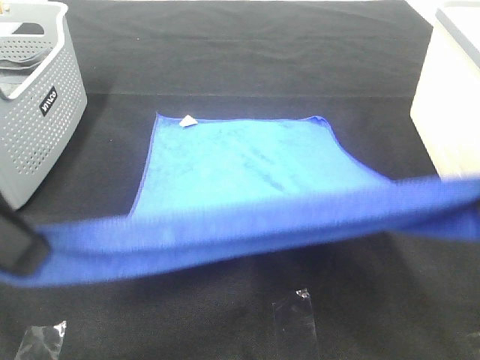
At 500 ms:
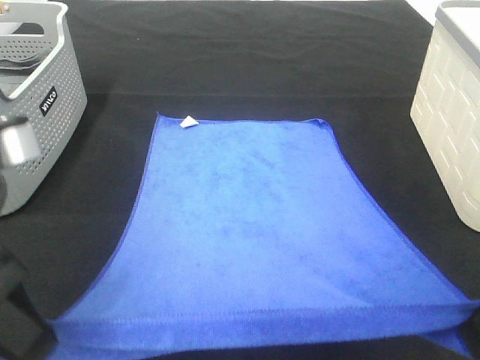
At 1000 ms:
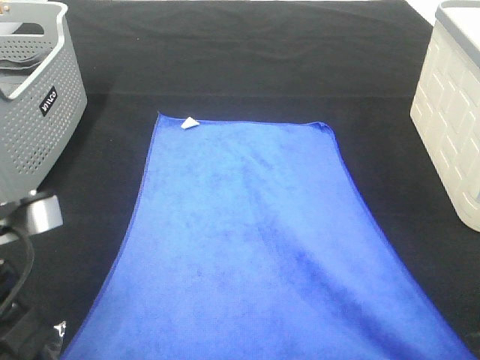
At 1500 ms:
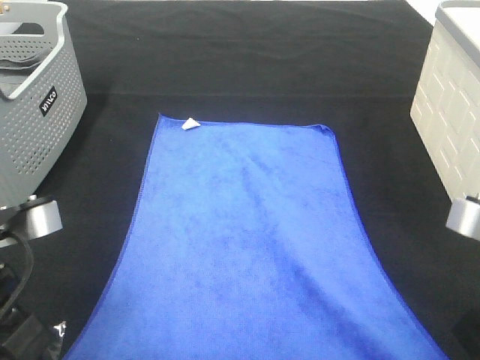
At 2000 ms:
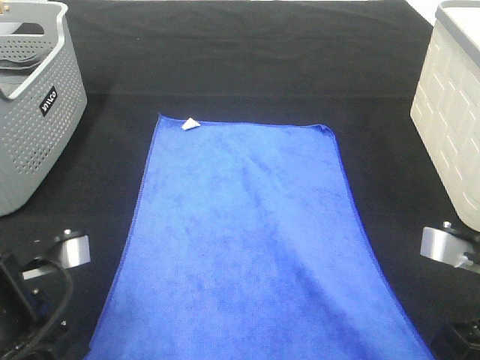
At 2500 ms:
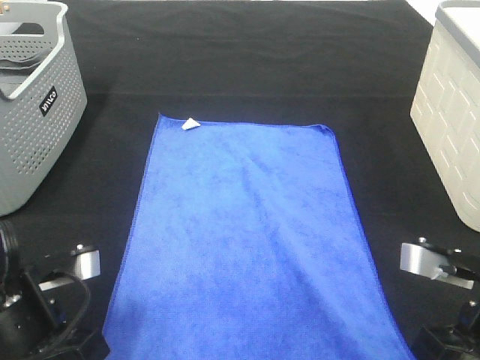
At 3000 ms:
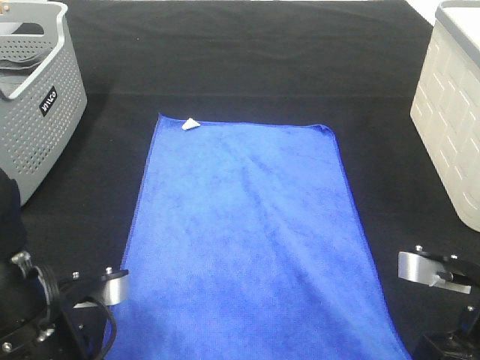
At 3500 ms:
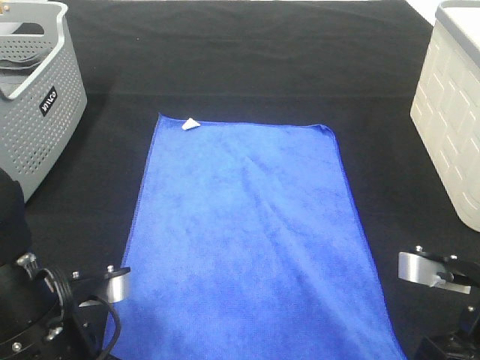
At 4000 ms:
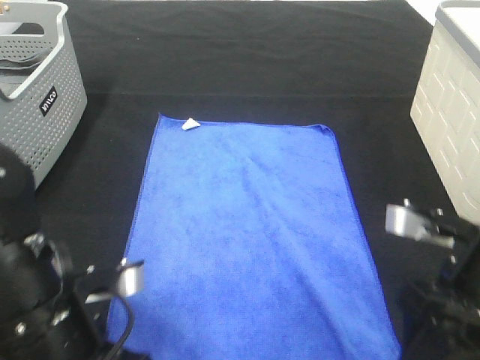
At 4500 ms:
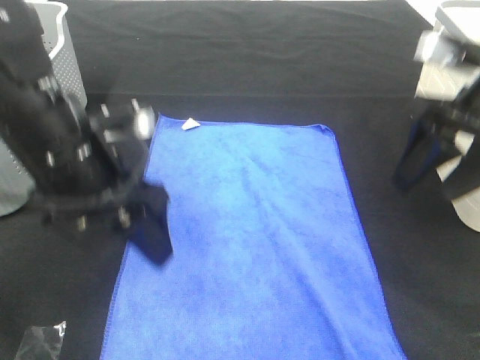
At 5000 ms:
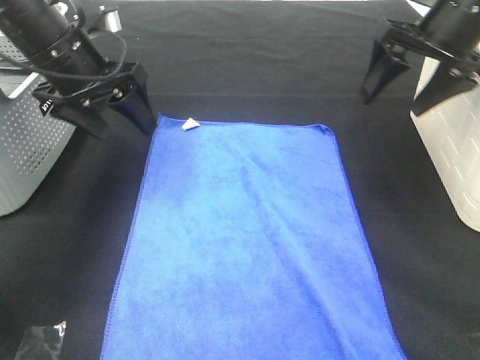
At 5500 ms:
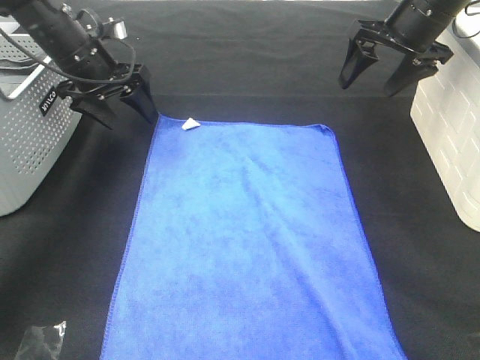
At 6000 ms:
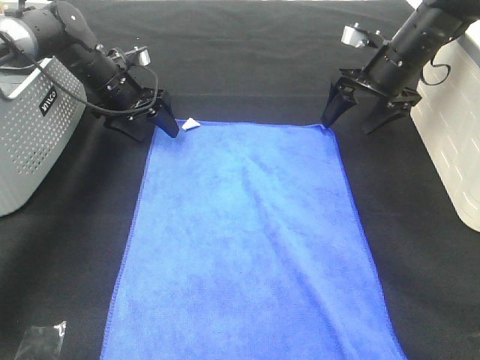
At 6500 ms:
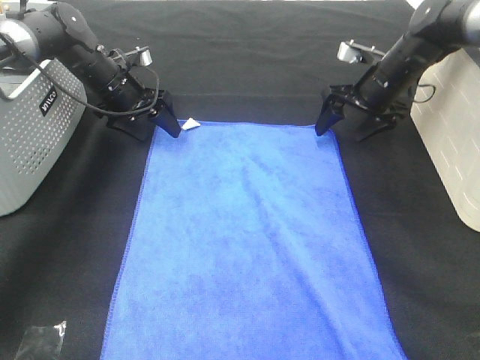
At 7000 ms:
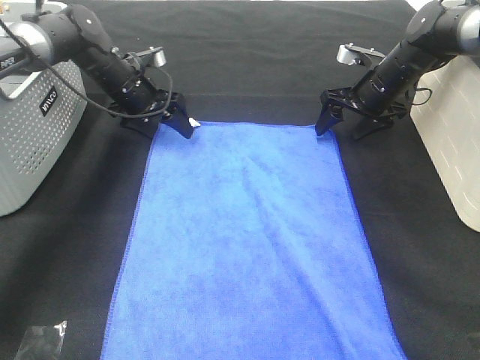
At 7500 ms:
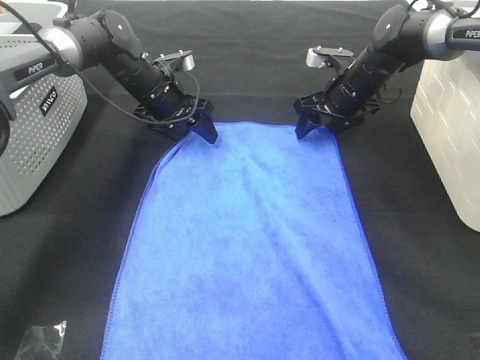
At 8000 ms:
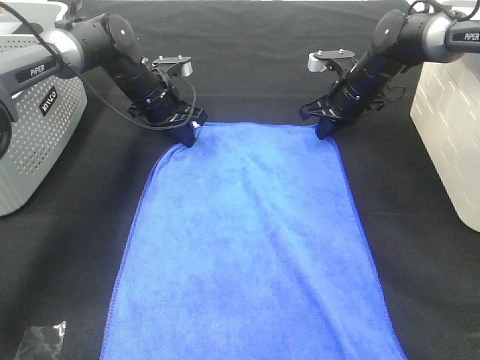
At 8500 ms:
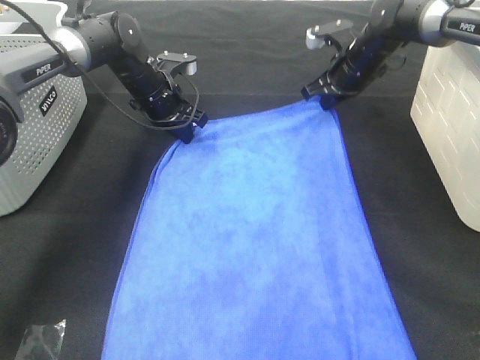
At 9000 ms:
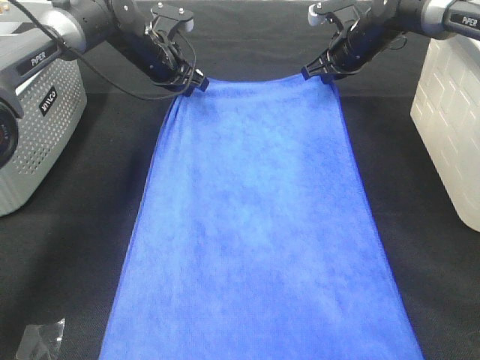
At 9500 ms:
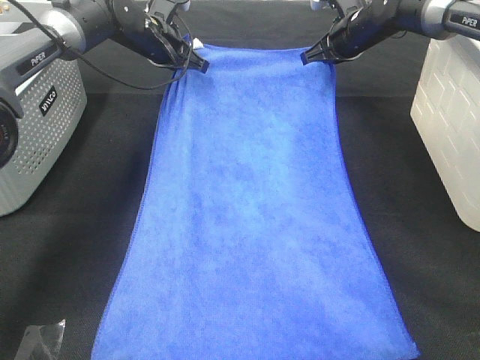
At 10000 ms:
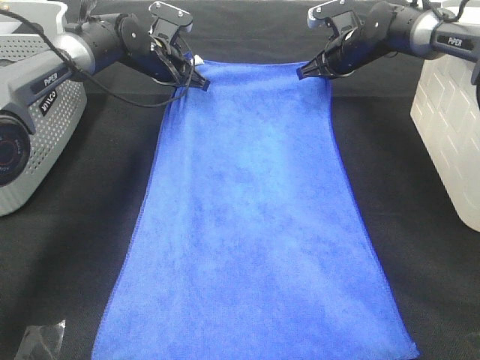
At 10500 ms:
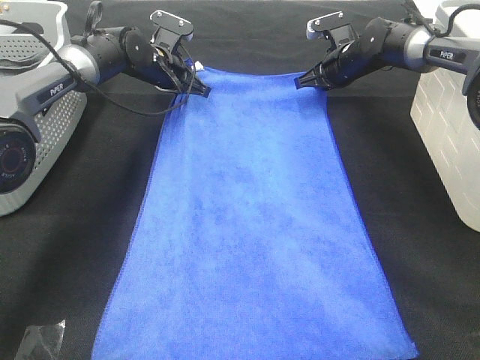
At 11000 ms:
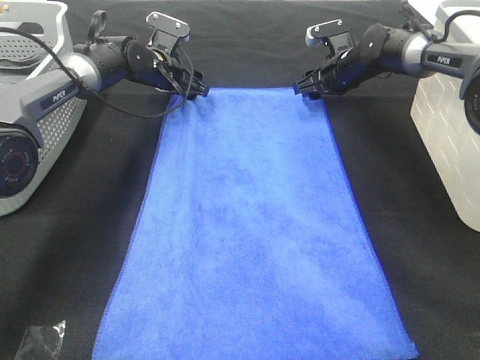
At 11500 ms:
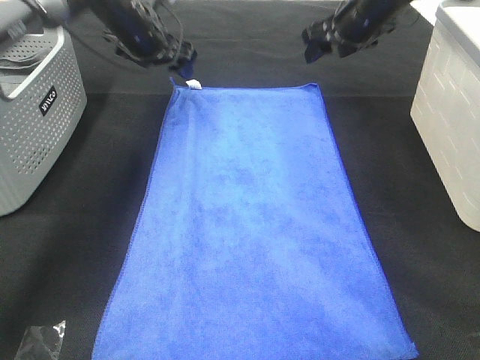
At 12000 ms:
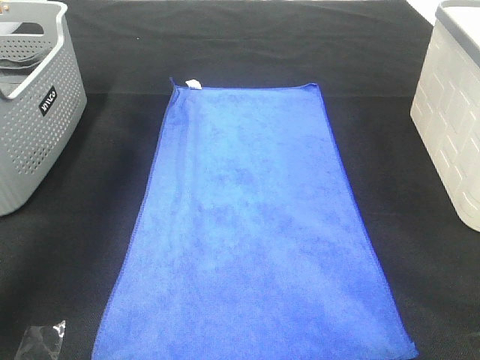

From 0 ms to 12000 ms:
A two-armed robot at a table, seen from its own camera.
Task of the whole recording: Remove the towel and place it.
Step, from 0 ms to 5000 ms: Left hand:adjust the blue towel.
Step, from 0 ms to 5000 ms: Right hand:adjust the blue towel.
From 0 ms to 2000 ms: The grippers both shift downward by some 15 cm.
From 2000 ms to 4000 ms: The left gripper moves approximately 5 cm, and opens its fingers. The right gripper opens its fingers.
From 4000 ms to 6000 ms: The two grippers go some 35 cm forward.
From 6000 ms to 8000 ms: The right gripper shifts about 5 cm downward, and closes its fingers. Meanwhile the left gripper is displaced to the right by approximately 5 cm, and closes.
From 8000 ms to 10000 ms: The grippers both shift forward by approximately 5 cm.
From 10000 ms to 12000 ms: The right gripper goes approximately 25 cm upward and backward, and opens its fingers, while the left gripper heads upward, covering some 25 cm, and opens its fingers.

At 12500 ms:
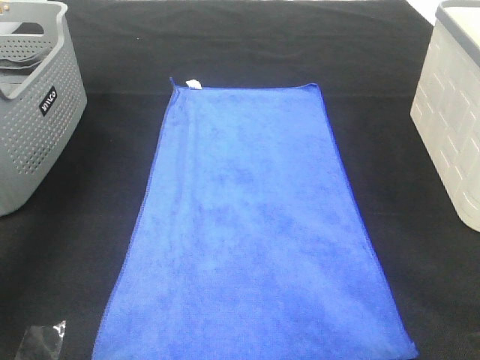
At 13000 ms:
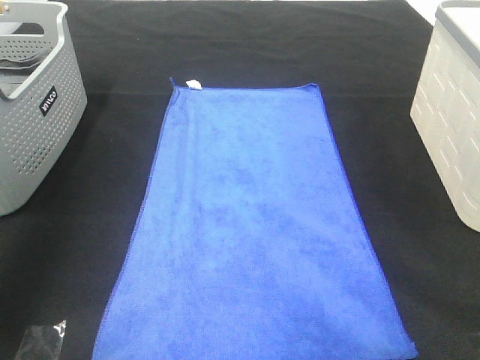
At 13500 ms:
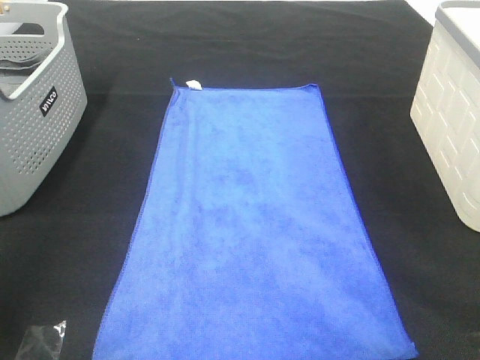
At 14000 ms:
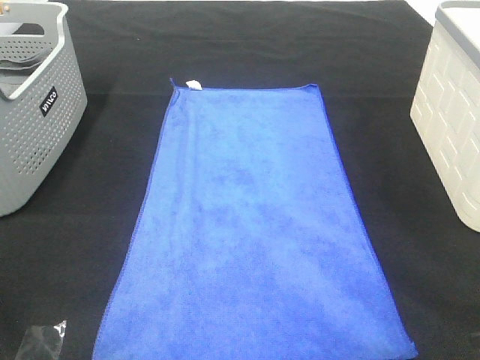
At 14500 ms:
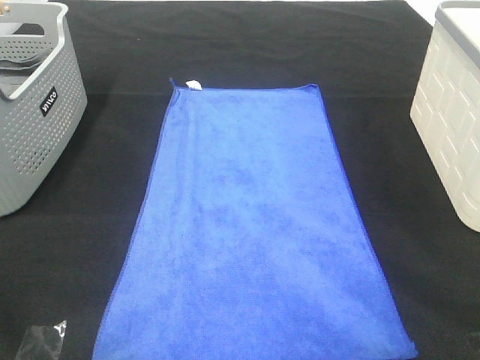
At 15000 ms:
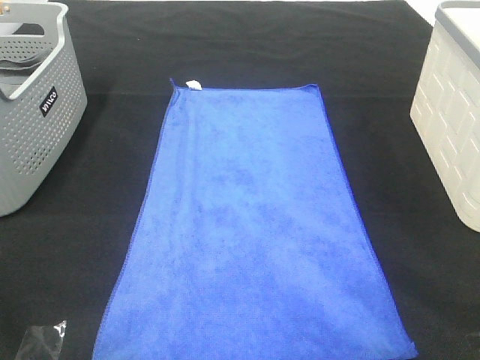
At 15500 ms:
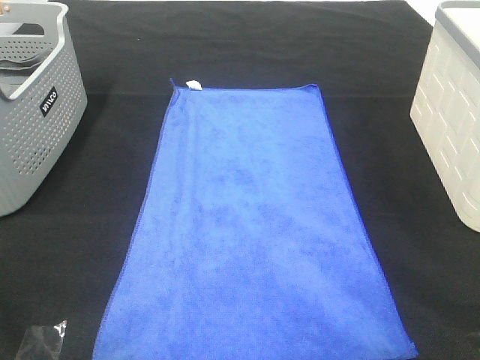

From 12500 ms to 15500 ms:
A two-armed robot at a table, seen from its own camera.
Task of the whole recording: Remove the towel and place it.
From 12500 ms to 14000 ms: Both grippers move backward, roughly 40 cm.

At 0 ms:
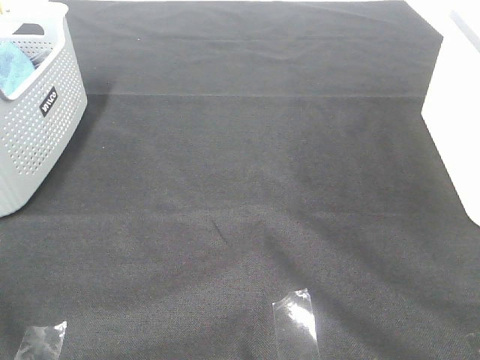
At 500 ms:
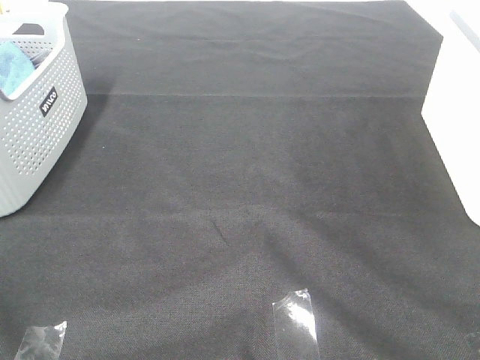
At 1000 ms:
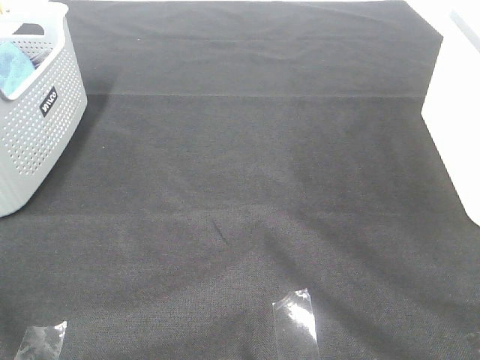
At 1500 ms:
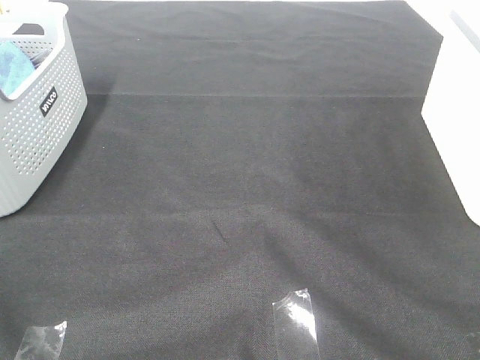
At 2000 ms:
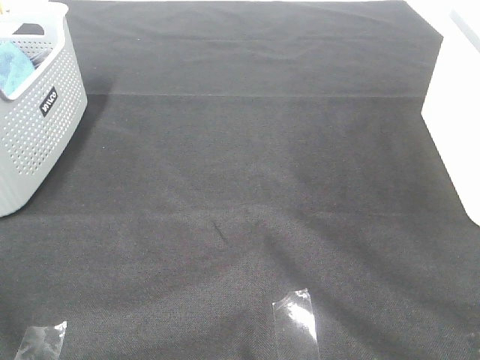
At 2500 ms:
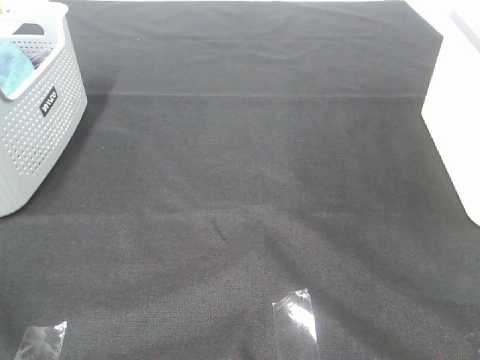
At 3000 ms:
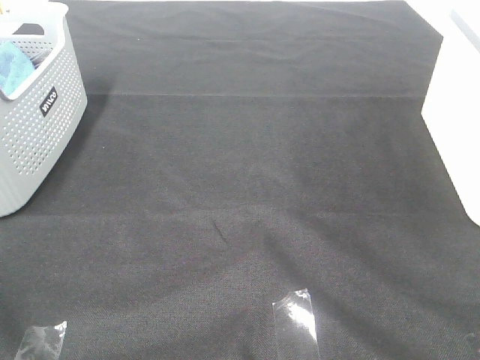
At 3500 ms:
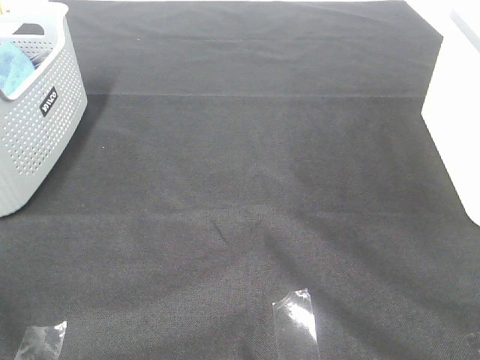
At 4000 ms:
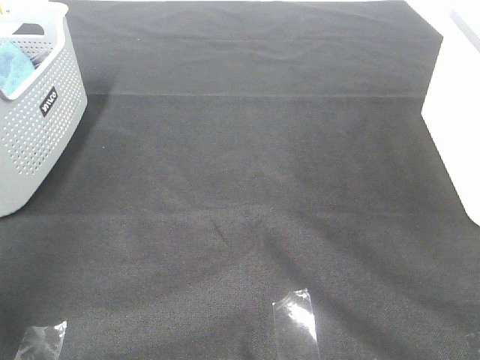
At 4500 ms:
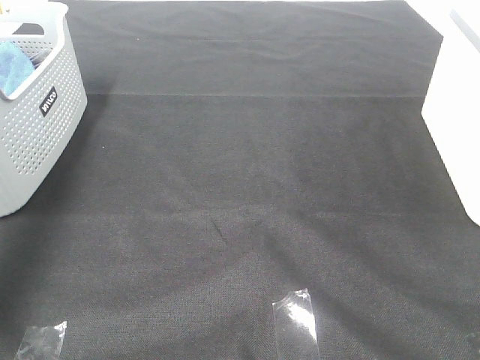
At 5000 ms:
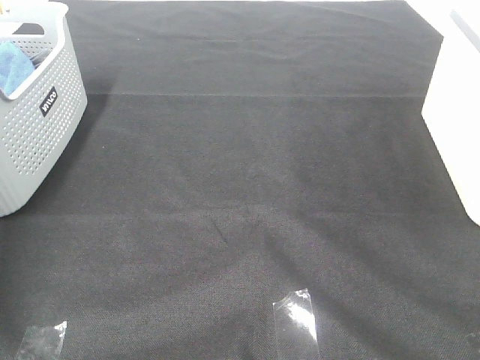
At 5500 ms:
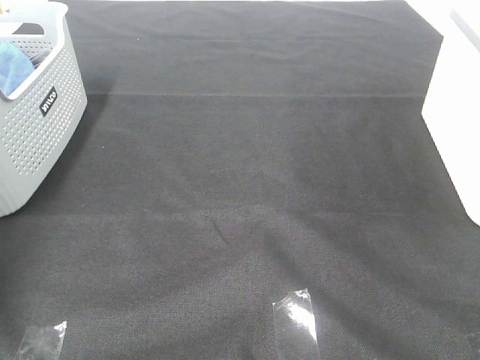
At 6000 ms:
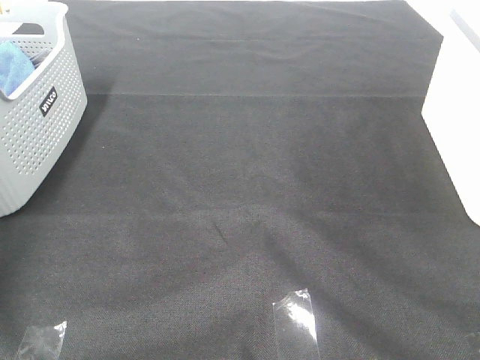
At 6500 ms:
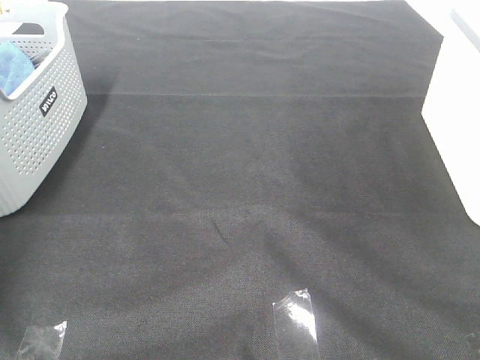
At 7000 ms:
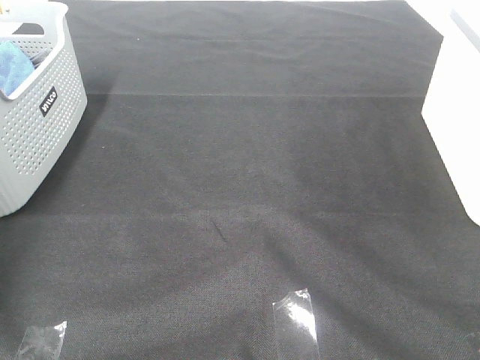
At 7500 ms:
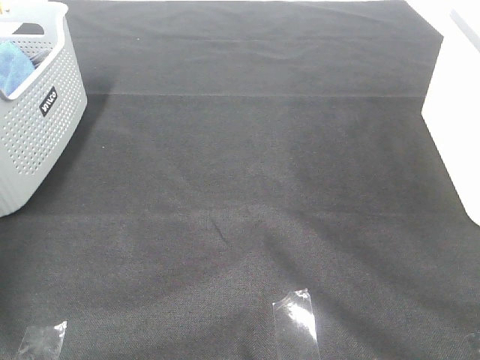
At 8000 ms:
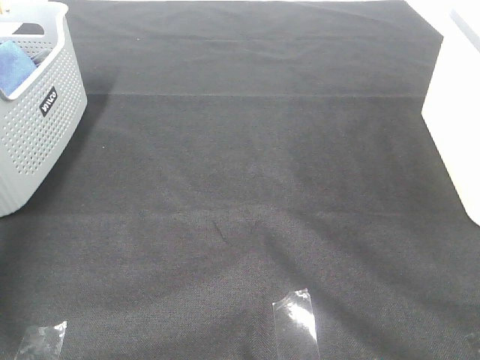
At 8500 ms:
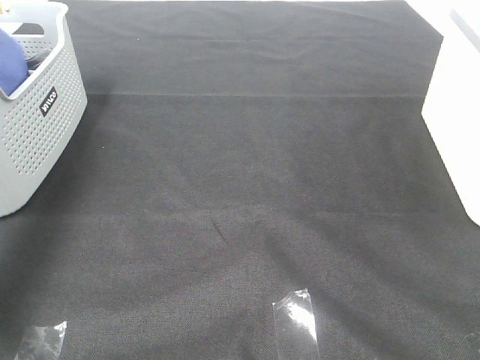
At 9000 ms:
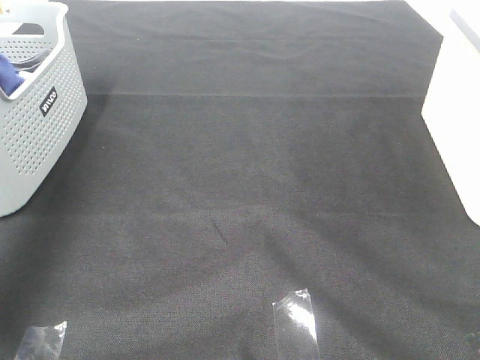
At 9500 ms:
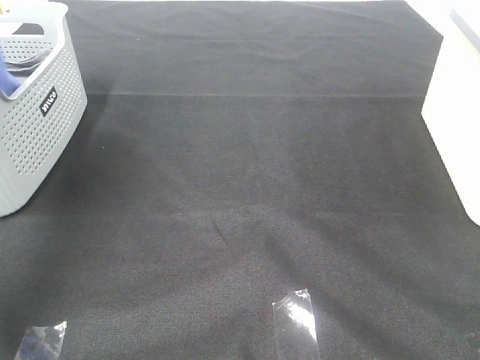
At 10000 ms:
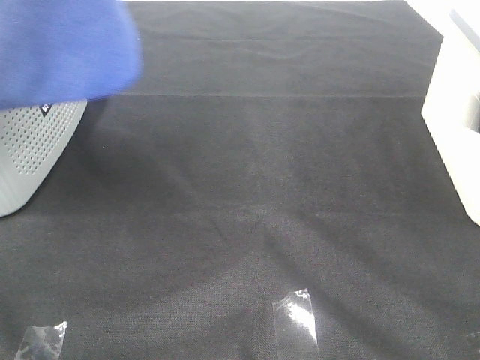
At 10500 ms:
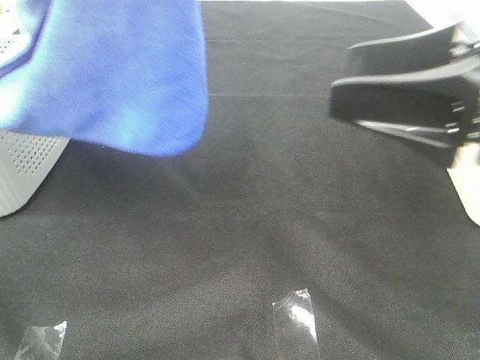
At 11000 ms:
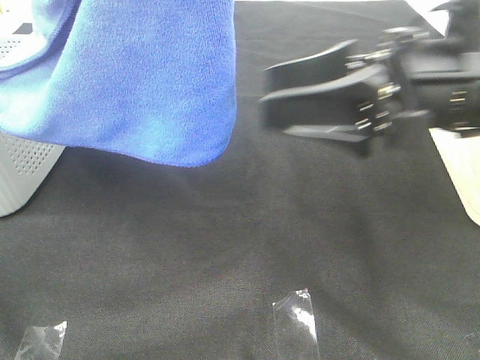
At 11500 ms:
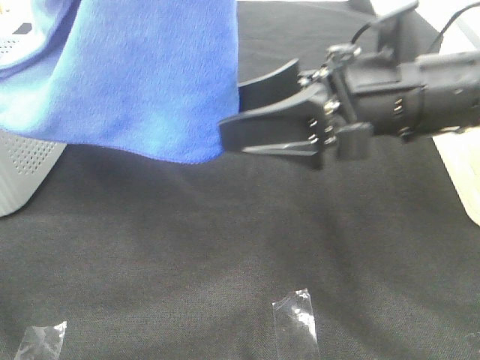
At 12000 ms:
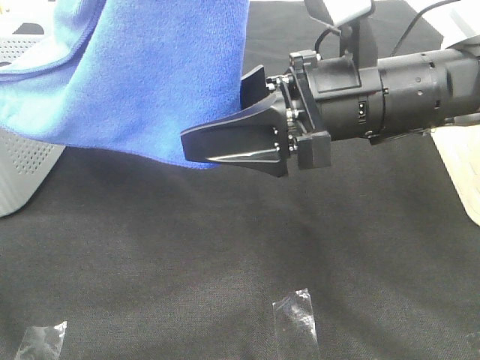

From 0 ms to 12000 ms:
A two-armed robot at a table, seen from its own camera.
Task of the whole recording: Remove the towel and place it.
From 0 ms to 2000 ms: Both grippers stay about where they are.
From 4000 ms to 6000 ms: The left gripper goes some 35 cm forward and downward.
From 8000 ms to 10000 ms: The left gripper goes approximately 35 cm to the right, backward and upward; the right gripper travels forward and to the left by some 15 cm.
From 10000 ms to 12000 ms: The left gripper moves to the right, roughly 10 cm; the right gripper travels forward, to the left and downward by roughly 20 cm.
